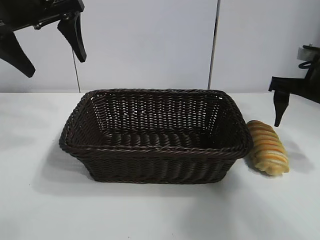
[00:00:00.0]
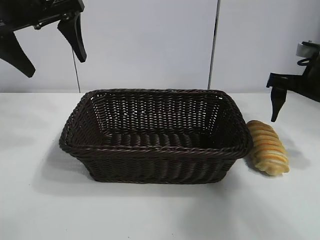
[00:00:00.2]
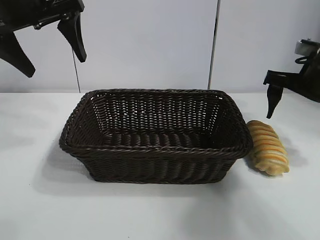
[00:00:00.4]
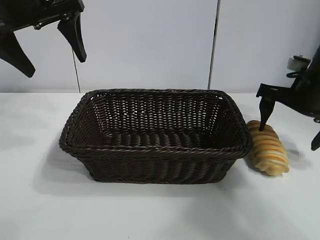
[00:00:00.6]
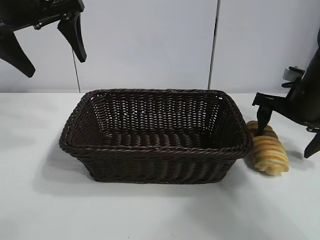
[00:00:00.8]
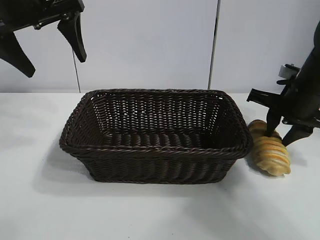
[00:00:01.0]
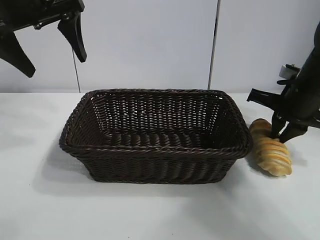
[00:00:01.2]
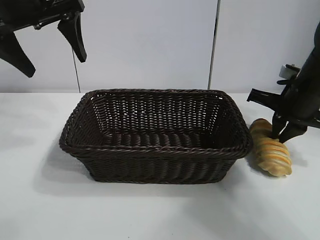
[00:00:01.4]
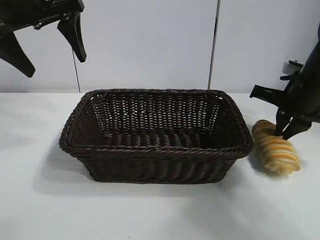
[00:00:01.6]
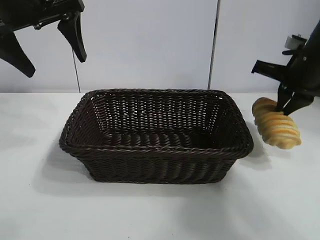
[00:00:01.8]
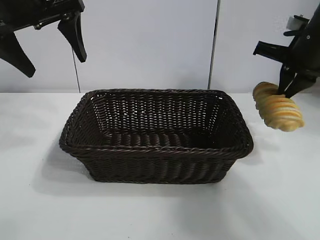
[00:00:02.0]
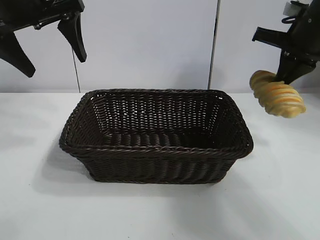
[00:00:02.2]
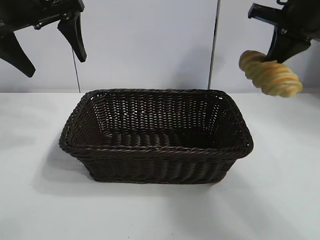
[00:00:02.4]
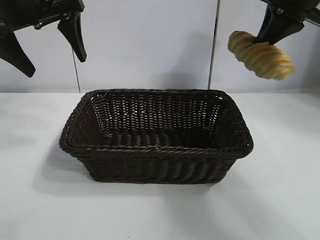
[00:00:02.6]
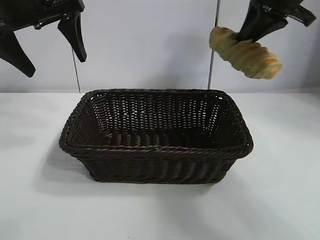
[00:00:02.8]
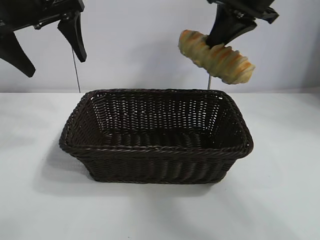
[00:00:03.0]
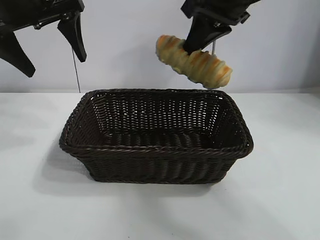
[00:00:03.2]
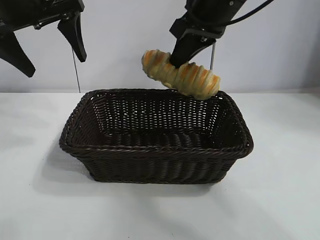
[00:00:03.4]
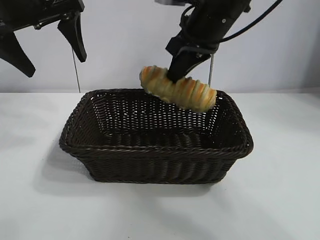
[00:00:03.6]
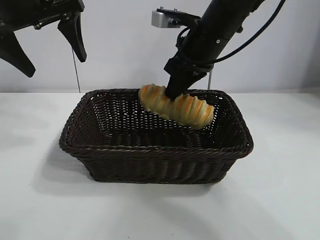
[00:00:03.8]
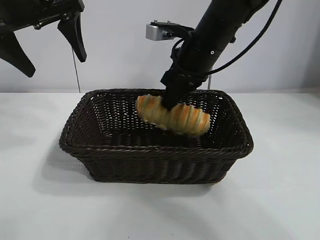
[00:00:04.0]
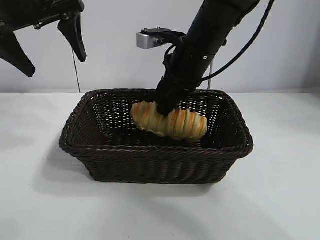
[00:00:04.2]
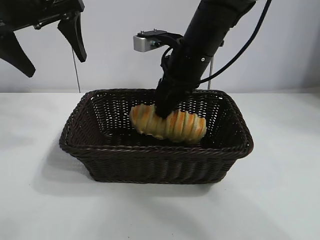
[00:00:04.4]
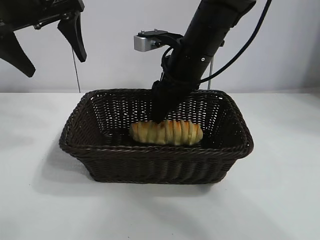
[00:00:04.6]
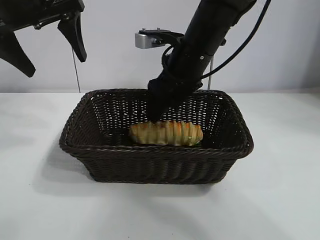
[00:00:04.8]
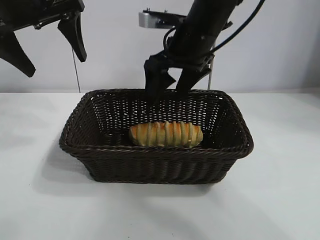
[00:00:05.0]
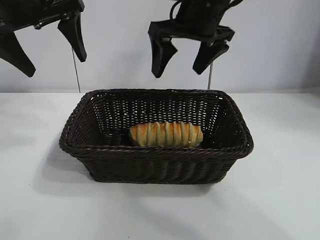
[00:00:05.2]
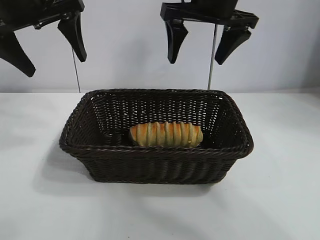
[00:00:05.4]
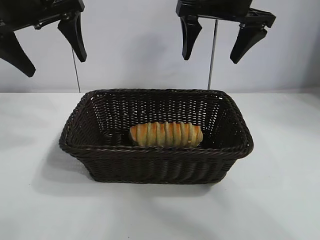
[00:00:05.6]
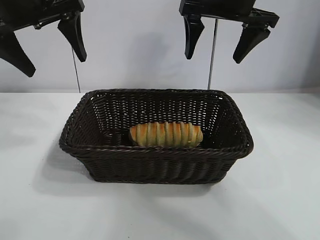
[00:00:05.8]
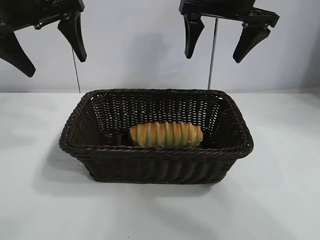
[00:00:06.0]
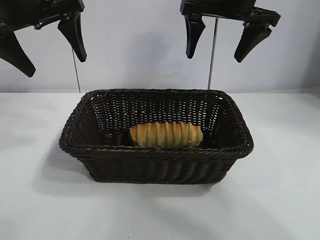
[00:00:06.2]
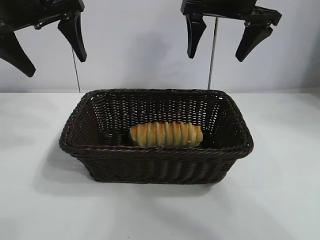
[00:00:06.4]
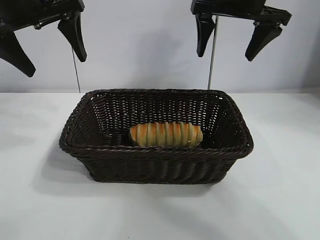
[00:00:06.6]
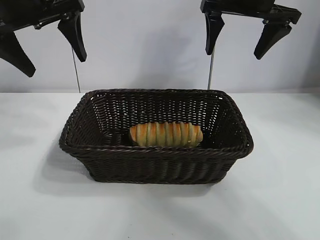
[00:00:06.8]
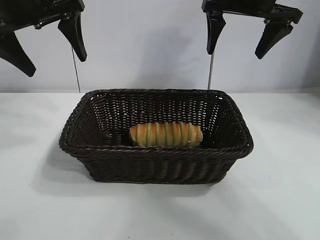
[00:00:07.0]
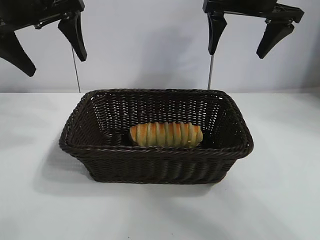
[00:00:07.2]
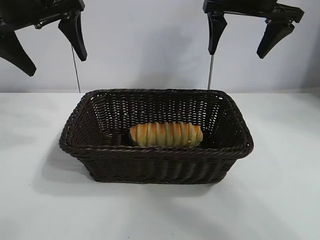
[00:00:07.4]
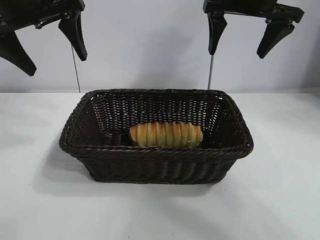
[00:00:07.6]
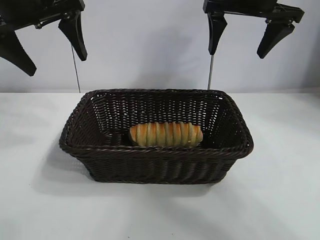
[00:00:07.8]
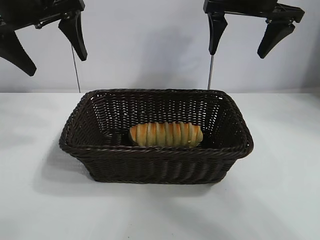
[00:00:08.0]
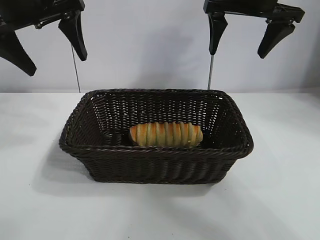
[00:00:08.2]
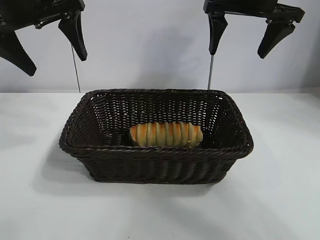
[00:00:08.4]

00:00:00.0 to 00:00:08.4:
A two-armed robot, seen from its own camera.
Task of the whole recording: pick up the long bread and put it into the basket.
Step, 00:00:01.6 to 00:00:04.8: Place the long bread in the basket with right gripper.
